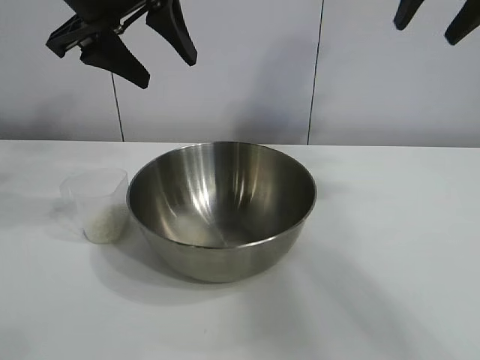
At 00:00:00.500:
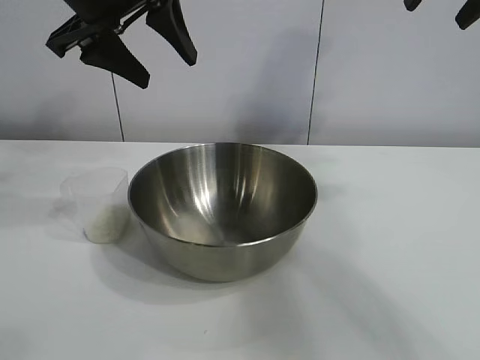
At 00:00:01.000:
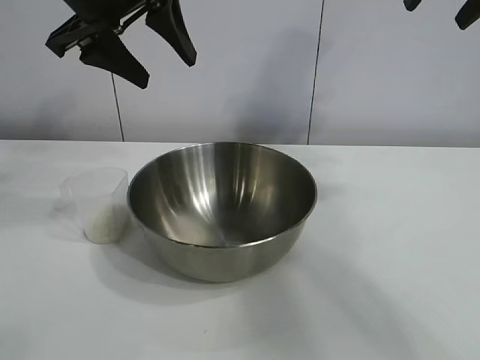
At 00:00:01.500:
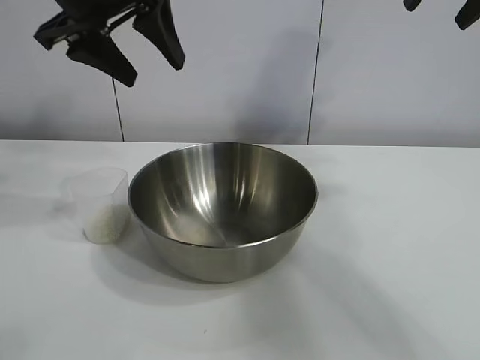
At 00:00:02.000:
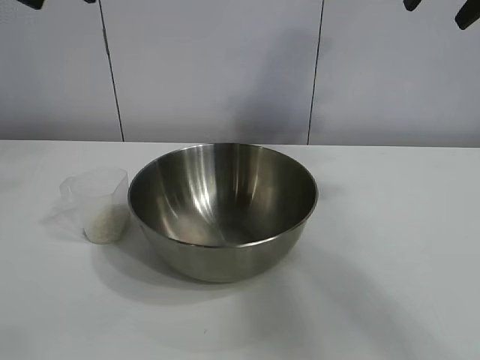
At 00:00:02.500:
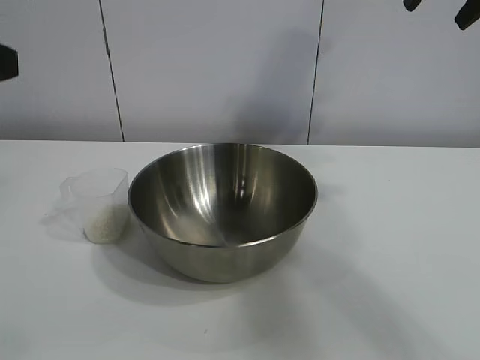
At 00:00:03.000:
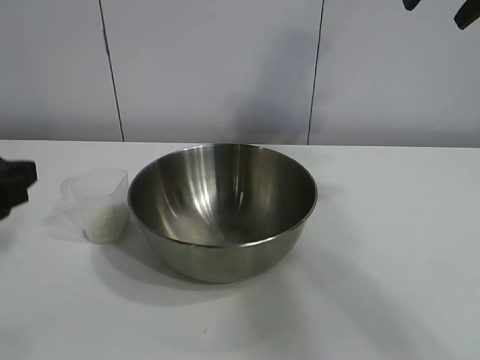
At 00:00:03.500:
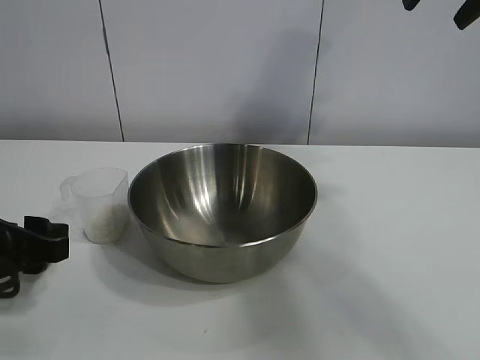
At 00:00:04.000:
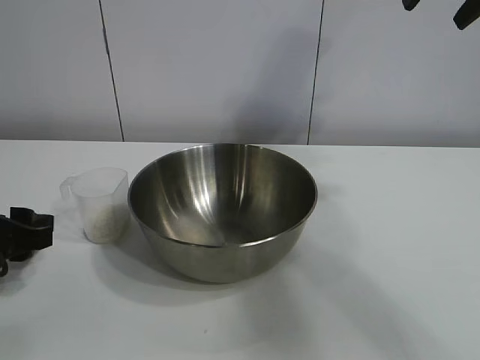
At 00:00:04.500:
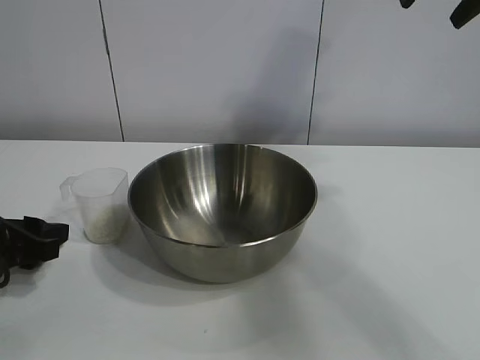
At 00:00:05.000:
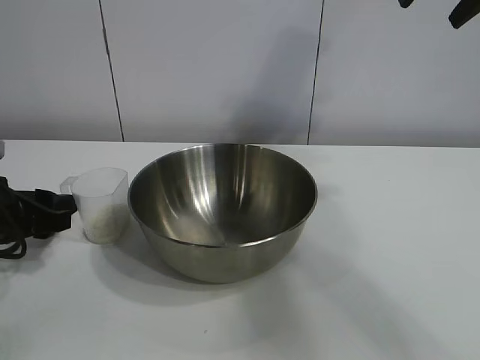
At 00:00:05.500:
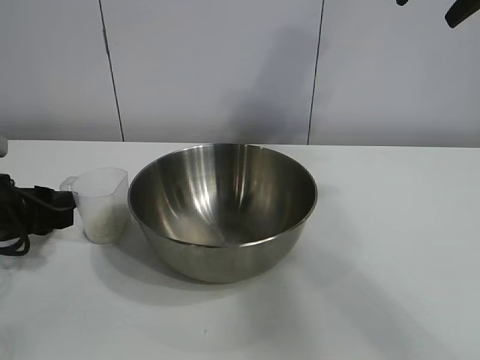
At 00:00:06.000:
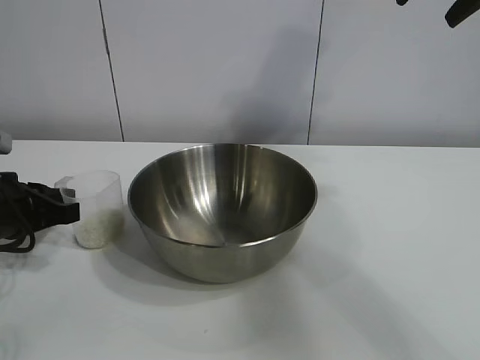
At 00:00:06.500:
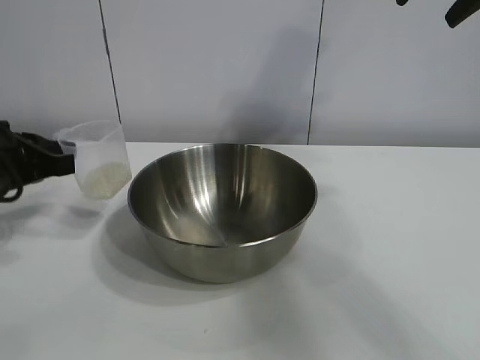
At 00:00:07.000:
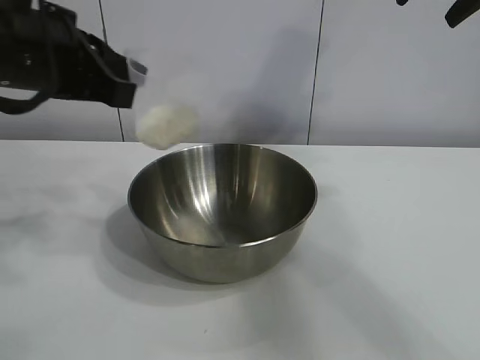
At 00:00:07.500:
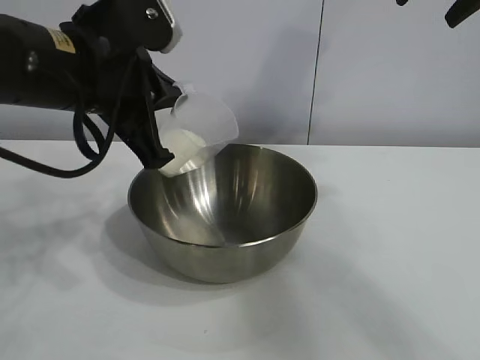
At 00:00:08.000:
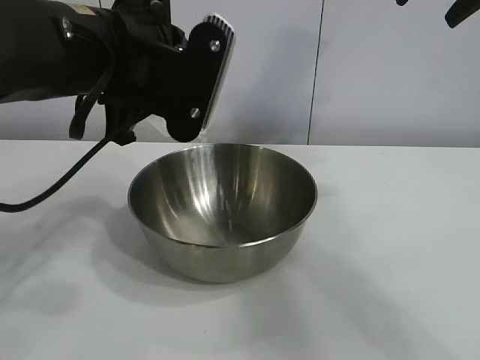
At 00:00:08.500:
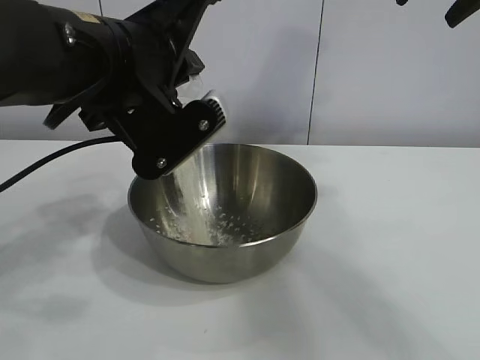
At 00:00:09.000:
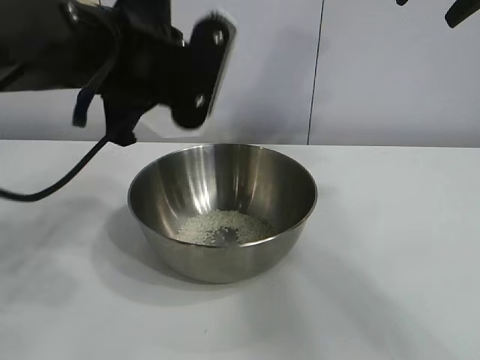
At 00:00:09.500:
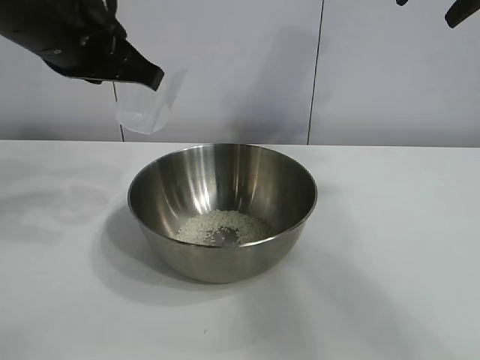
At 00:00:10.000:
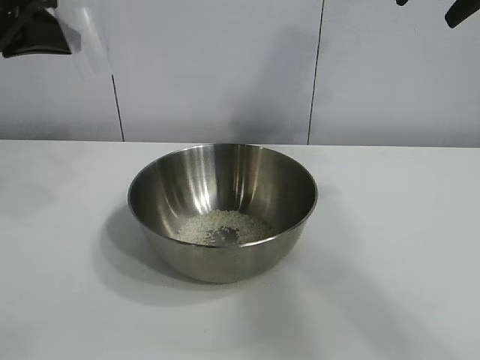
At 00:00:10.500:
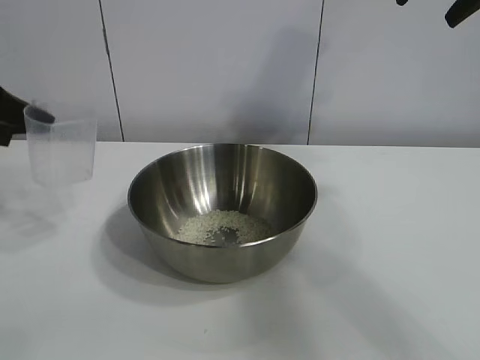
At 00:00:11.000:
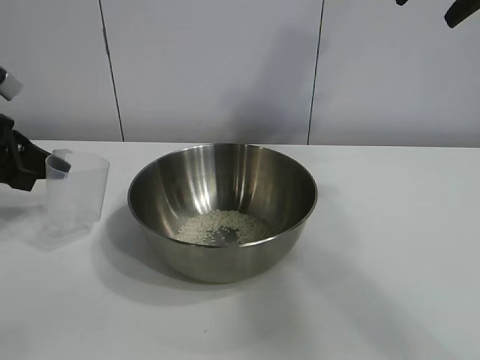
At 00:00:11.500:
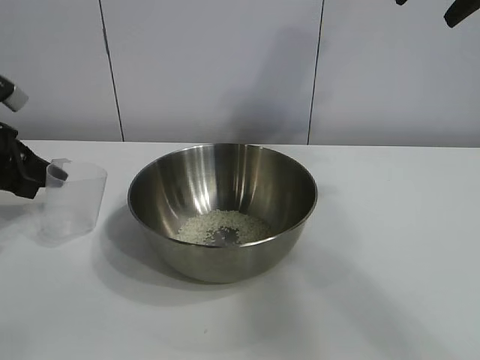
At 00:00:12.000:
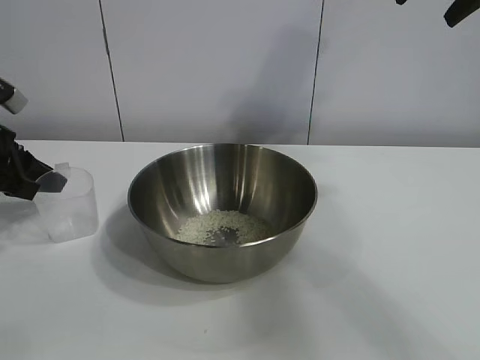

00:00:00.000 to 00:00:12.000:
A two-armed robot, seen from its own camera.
Task of the whole recording: the right gripper grasp the rice container and place it in the center of the table, the left gripper grasp the rice scoop and pour the rice into the rice container.
Step, 00:00:00.000 to 00:00:06.000: Grasp the cup with rice in it with left gripper.
Step, 00:00:06.500 to 00:00:09.000: Pour the rice from the cup into the bowl with the left gripper.
